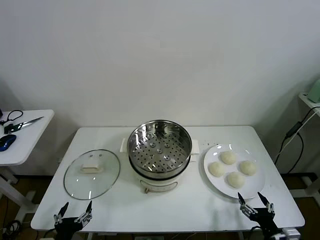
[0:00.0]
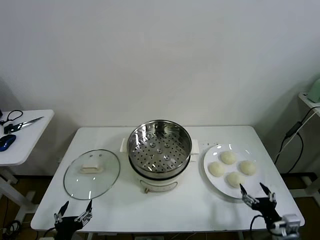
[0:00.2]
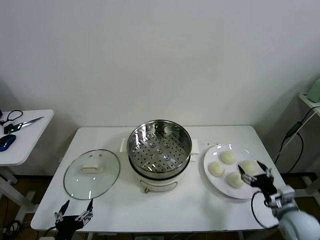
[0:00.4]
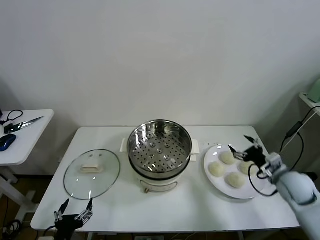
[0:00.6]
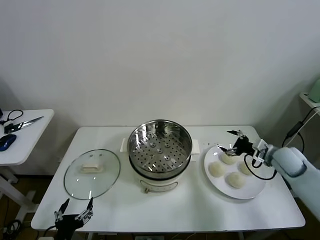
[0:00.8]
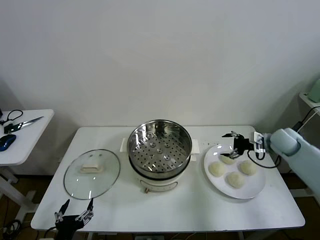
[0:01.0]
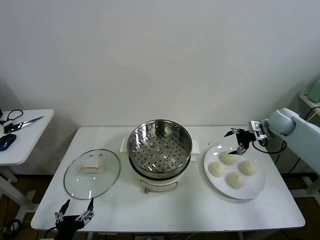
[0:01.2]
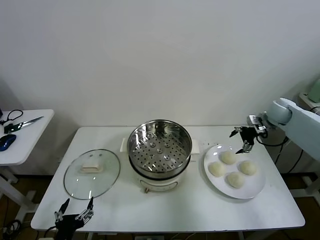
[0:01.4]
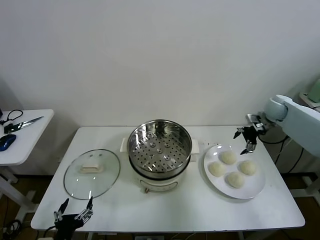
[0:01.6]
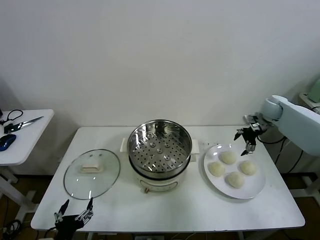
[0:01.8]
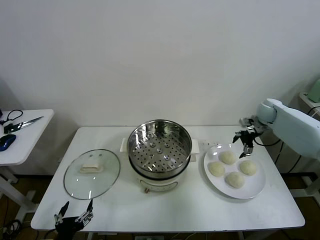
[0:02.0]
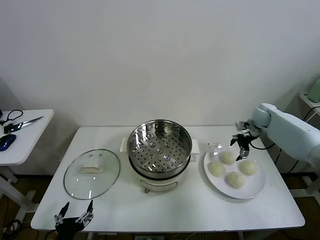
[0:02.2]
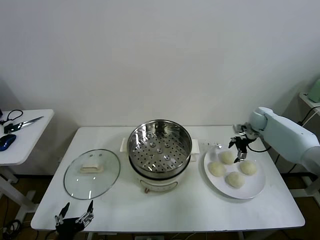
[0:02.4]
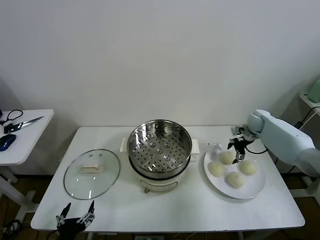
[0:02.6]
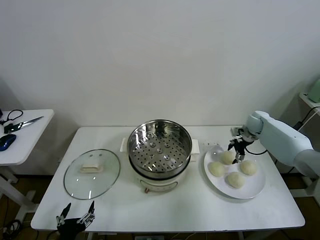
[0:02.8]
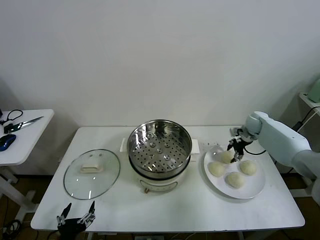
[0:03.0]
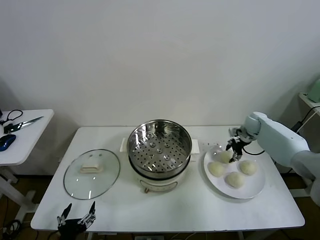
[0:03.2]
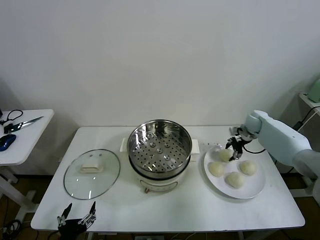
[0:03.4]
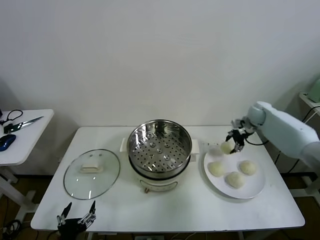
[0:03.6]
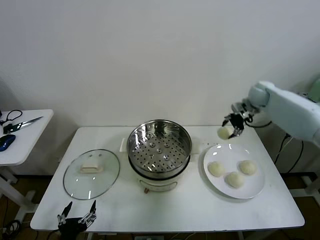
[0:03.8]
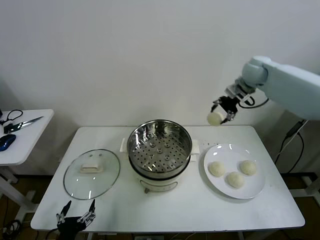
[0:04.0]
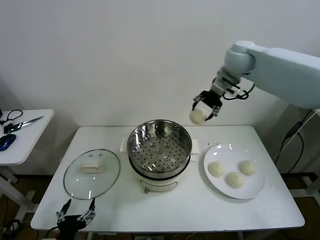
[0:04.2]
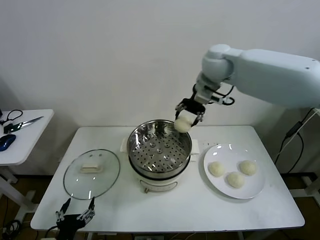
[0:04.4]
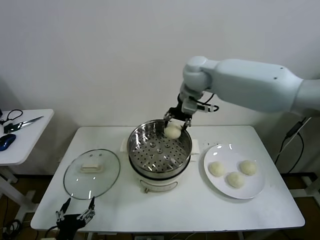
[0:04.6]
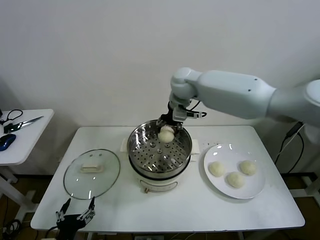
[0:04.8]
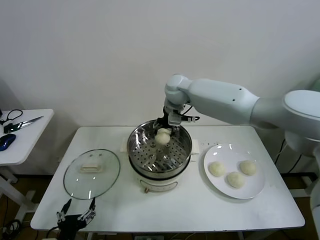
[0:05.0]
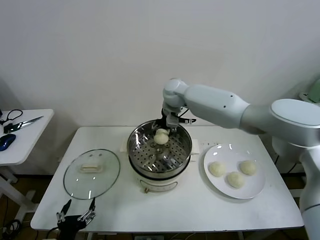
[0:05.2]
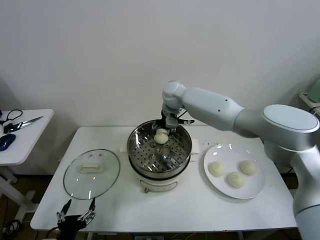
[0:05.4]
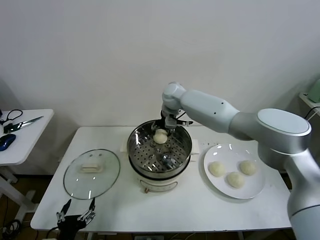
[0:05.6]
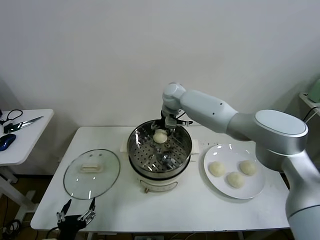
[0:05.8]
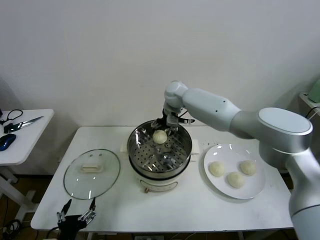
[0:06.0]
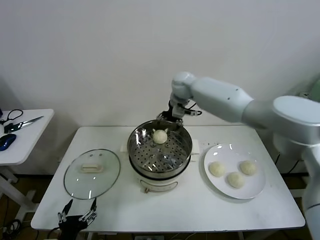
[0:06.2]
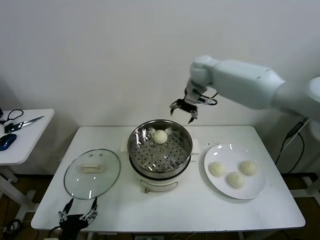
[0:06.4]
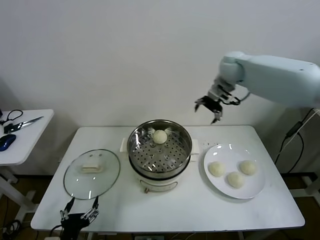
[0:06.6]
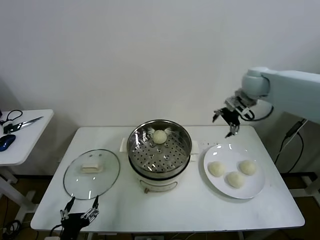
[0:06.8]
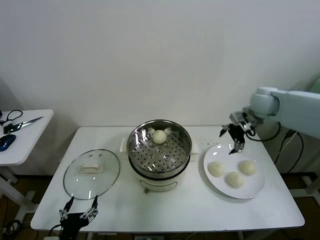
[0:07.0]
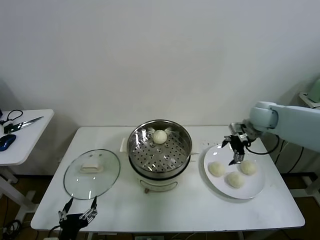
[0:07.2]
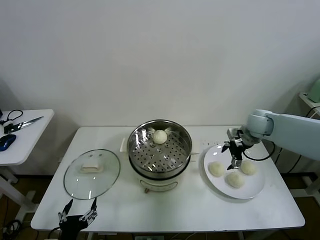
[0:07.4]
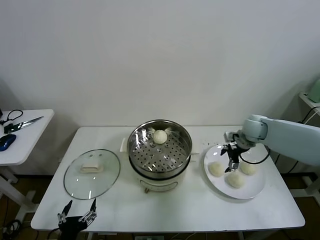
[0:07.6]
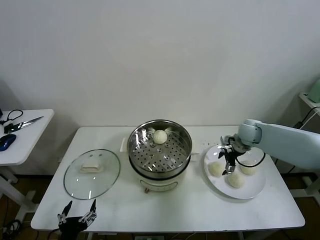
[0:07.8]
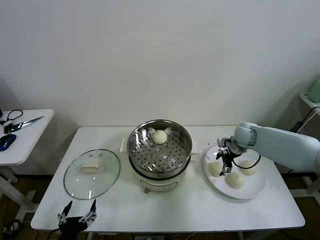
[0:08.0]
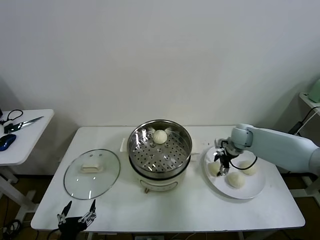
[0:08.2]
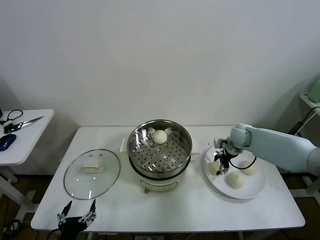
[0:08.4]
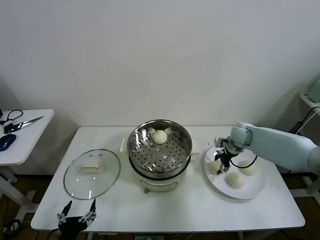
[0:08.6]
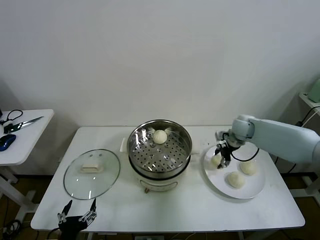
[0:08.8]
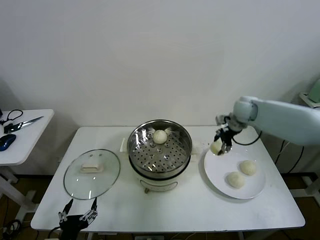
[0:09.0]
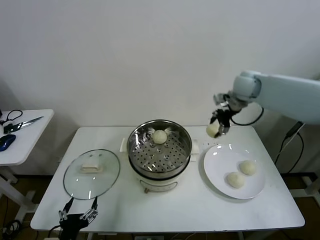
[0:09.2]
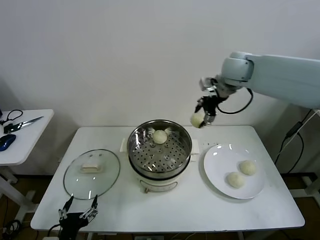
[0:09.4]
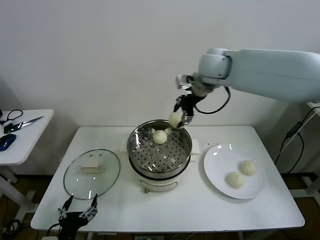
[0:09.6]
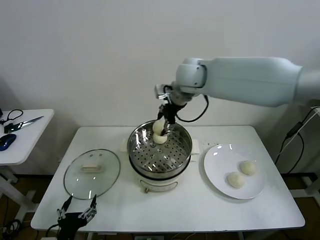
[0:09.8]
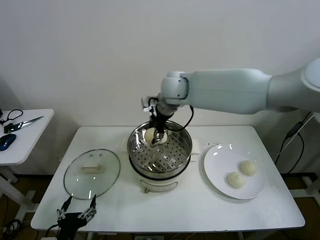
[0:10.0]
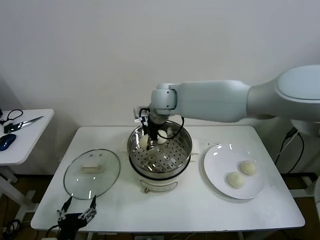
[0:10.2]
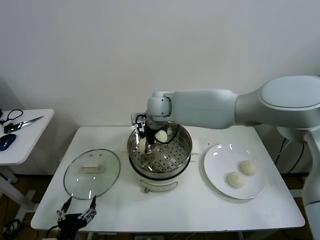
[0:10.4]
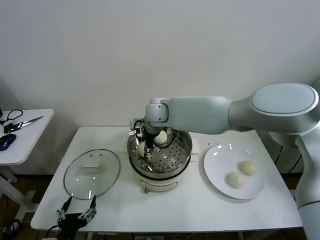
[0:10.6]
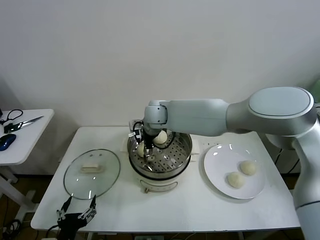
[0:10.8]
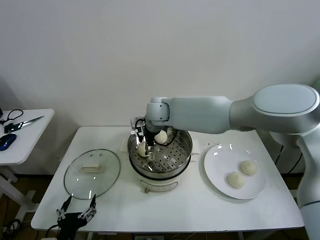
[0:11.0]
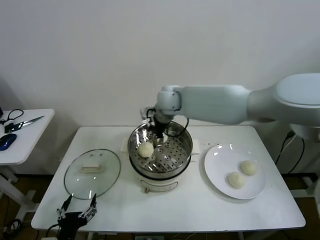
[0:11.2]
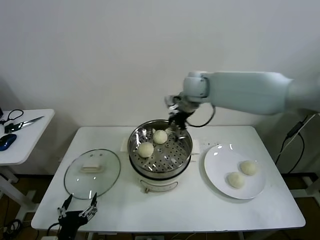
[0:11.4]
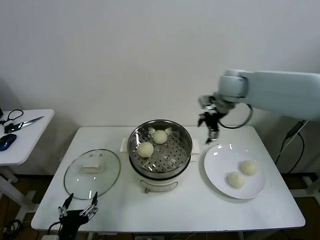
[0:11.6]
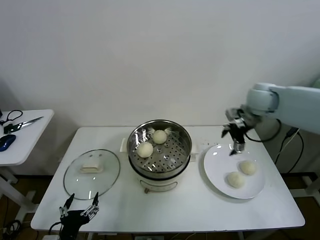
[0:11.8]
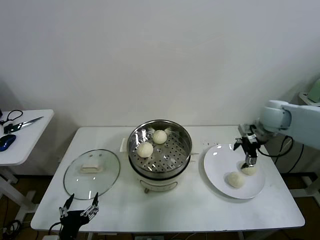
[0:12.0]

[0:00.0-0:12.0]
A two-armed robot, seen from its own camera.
Task of the whole recording: take steamed baozi put them in steamer then cover it.
Step, 0.0 to 3.0 s: Grasp the baozi in the plate with right gripper.
Step, 3.2 to 6.0 s: Place the baozi on the steamer with right gripper.
Step, 6.2 to 8.4 s: Grasp the baozi in the plate with right gripper.
Step, 8.8 to 10.8 s: Place the baozi on the steamer with right gripper.
1.6 to 3.0 s: The right gripper is displaced downward by some 10 cm, and closes up.
3.0 to 4.4 s: The right gripper is displaced upward and to the left by some 40 cm.
4.4 to 6.0 s: The right gripper goes some 15 cm downward, forward and to the left, and opens.
6.0 to 7.6 s: The right gripper heads to the right and downward, covering roughly 30 cm.
7.6 to 9.0 s: The right gripper shifts roughly 10 cm upward, and closes its fingers.
9.0 to 10.4 s: The right gripper moves to the left, approximately 30 cm.
10.4 to 12.0 s: The right gripper goes about 40 cm to the right, and opens its fingers.

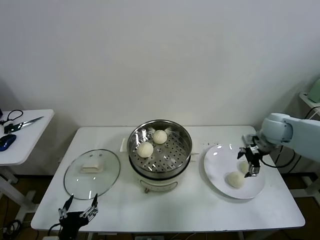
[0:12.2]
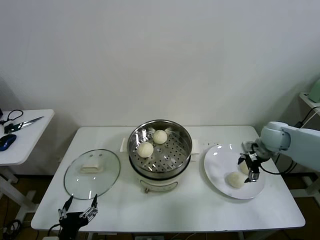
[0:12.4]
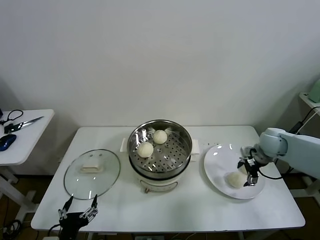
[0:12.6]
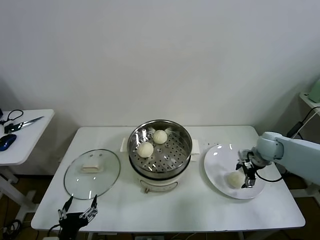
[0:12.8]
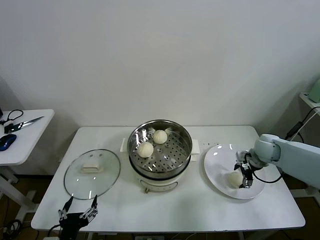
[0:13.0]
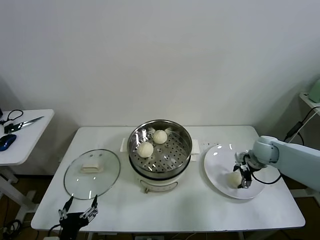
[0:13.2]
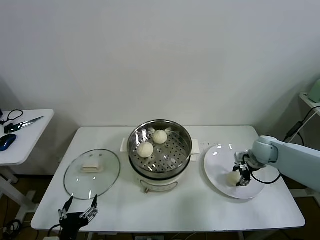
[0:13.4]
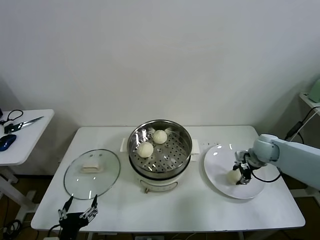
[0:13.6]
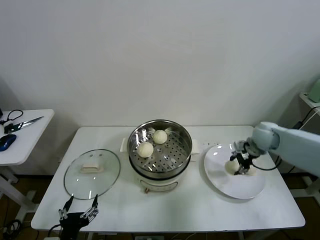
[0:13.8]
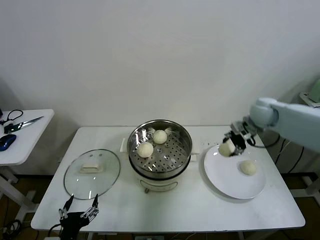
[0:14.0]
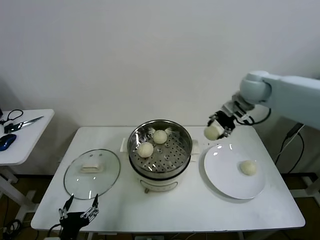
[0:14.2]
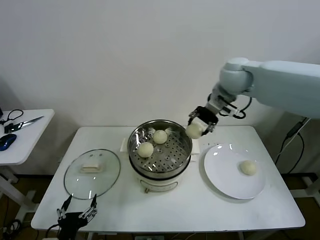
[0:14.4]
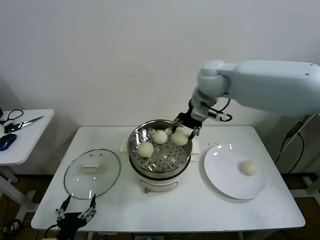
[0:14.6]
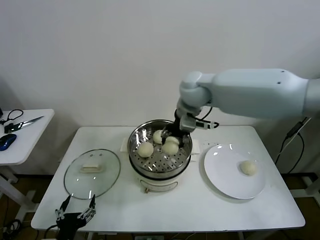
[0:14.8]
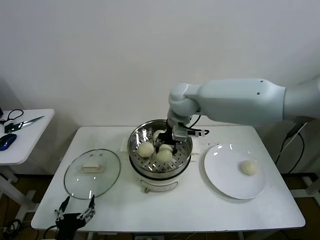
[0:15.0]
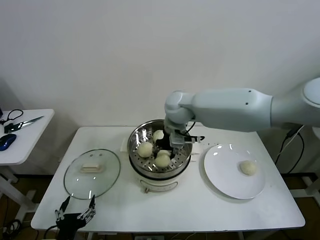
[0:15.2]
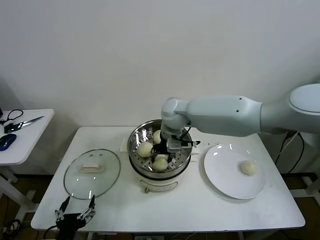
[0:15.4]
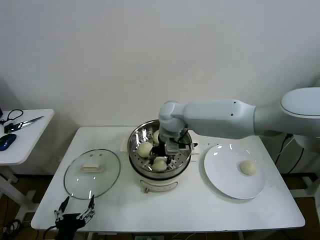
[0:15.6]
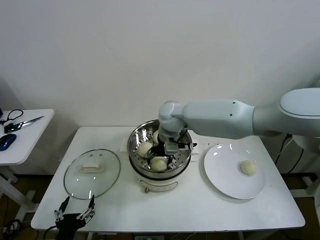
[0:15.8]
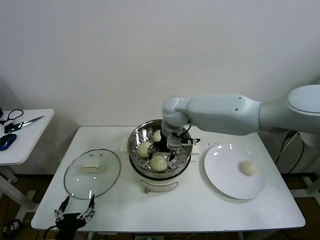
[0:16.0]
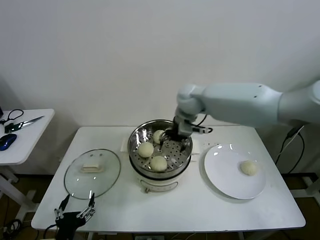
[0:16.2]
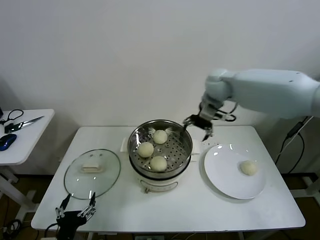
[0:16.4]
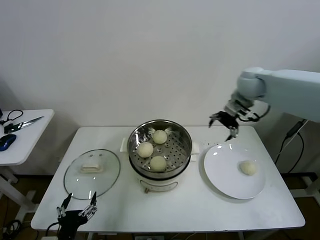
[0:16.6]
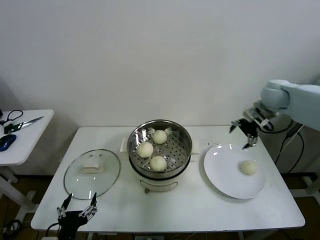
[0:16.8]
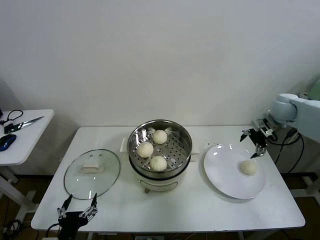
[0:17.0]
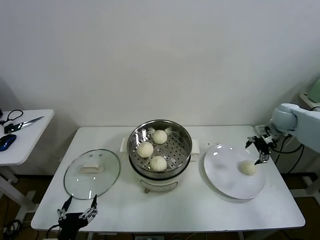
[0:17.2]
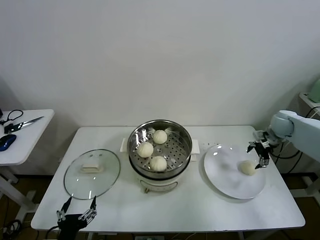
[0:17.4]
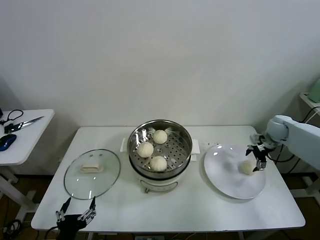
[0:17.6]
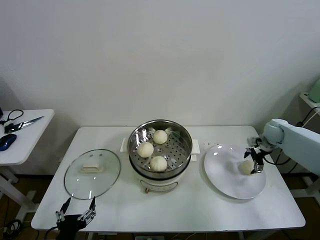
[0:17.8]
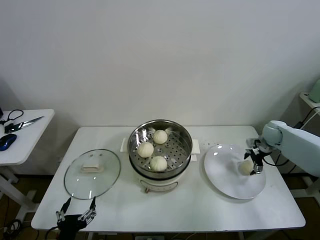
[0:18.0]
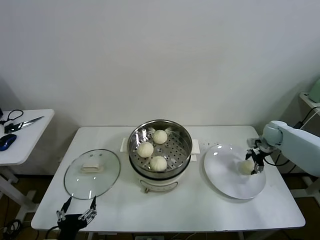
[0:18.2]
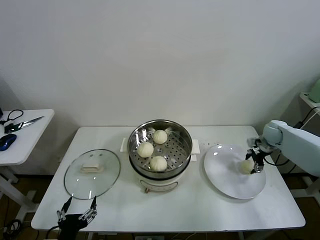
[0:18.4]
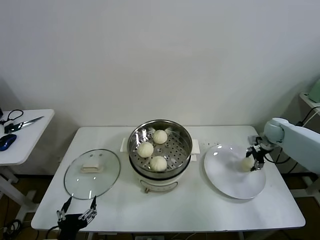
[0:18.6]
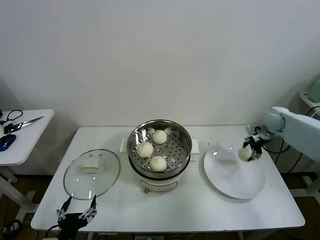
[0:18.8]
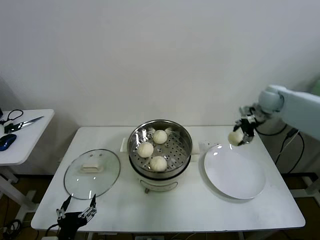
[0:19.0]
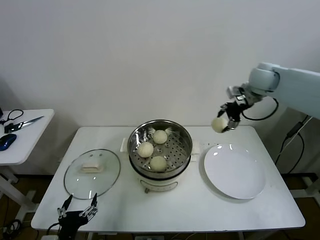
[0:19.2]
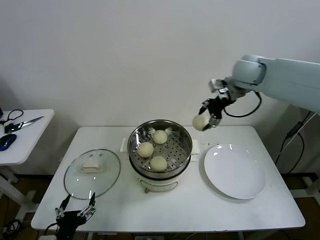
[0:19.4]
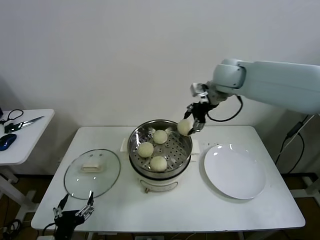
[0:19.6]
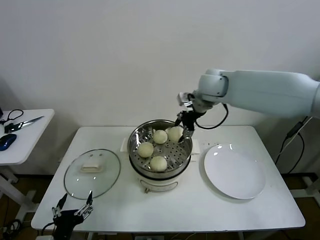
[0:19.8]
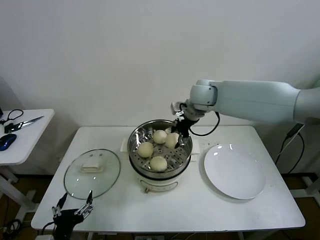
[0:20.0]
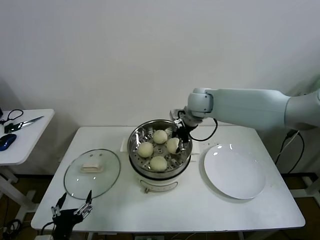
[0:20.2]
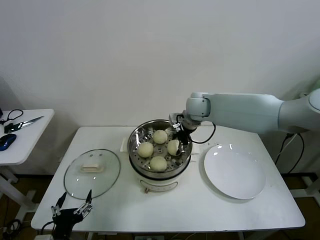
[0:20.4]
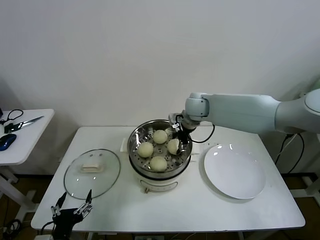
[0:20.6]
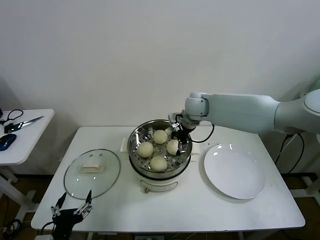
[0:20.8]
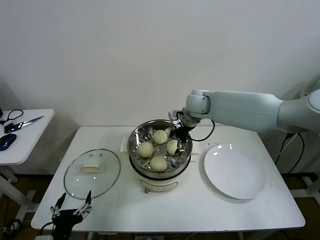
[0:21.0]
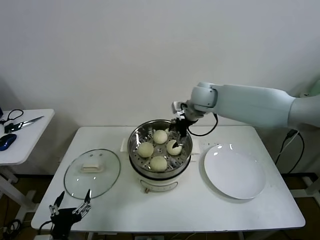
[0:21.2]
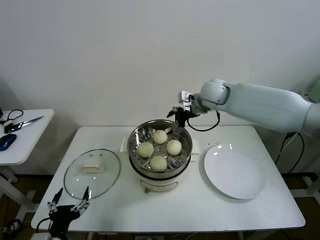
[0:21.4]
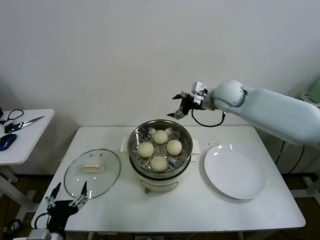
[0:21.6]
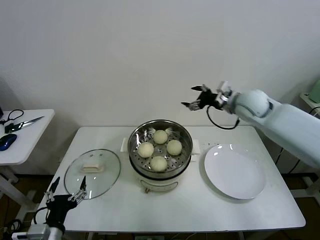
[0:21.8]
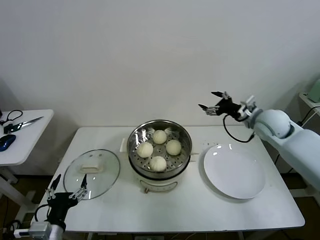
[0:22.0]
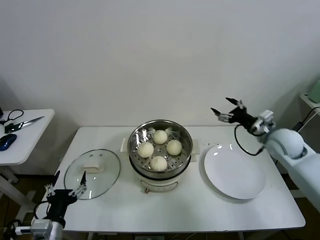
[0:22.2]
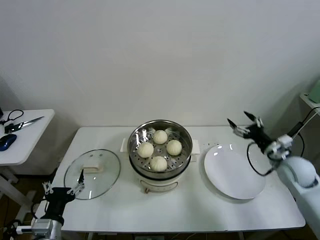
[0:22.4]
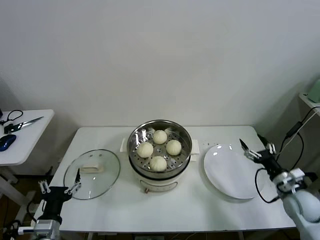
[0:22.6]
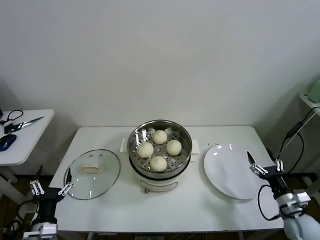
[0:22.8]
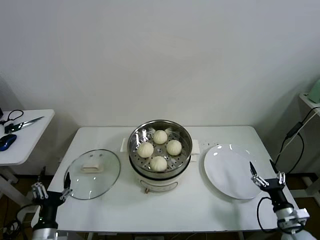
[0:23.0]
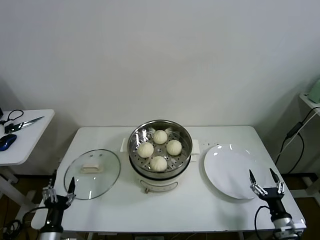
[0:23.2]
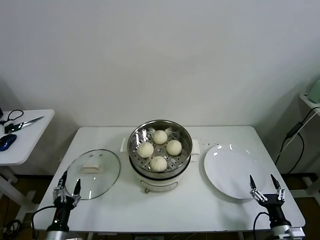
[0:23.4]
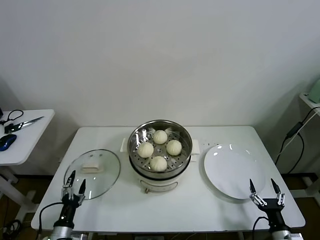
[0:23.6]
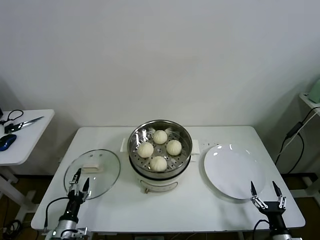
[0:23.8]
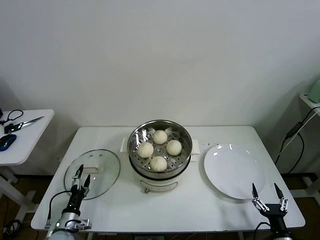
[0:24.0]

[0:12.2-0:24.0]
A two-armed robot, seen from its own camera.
Task of the whole recording: take steamed baozi put them in steamer then cover it.
Step, 13.6 to 15.8 s: Place the baozi on the steamer with right gripper.
Step, 16.0 to 18.2 s: Grasp the baozi in the plate with right gripper.
Step, 18.4 to 20.8 s: Place the baozi on the steamer with right gripper.
12.2 to 13.6 s: The right gripper moves downward, some 10 cm, and closes its fingers.
13.6 to 15.2 s: The right gripper travels to the left and upward by roughly 35 cm.
15.2 to 16.6 s: The right gripper is displaced to the right by roughly 25 cm, and opens.
16.6 to 18.2 s: The right gripper moves downward and to the right, about 25 cm.
18.2 to 19.6 s: The right gripper is displaced to the left and upward by some 35 cm, and closes up.
19.6 to 21.0 s: The right gripper moves downward and to the left, some 15 cm, and opens its fingers.
21.0 to 22.6 s: The right gripper moves to the right, backward and downward, some 50 cm. The left gripper shifts by some 5 cm.
22.6 to 24.0 s: The left gripper shifts some 15 cm downward, while the right gripper is displaced backward and downward by some 20 cm.
